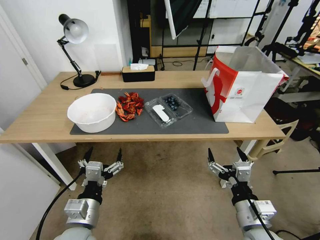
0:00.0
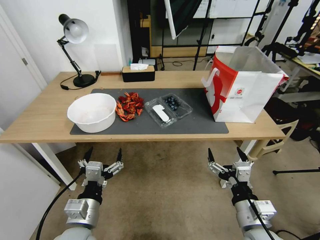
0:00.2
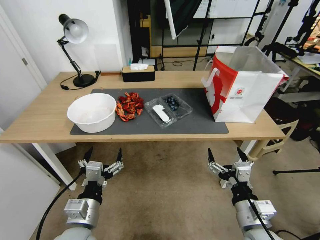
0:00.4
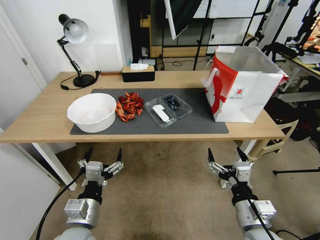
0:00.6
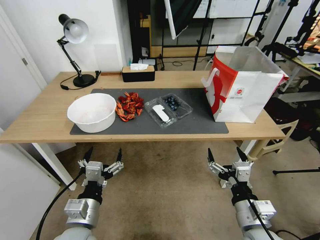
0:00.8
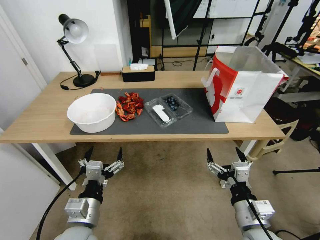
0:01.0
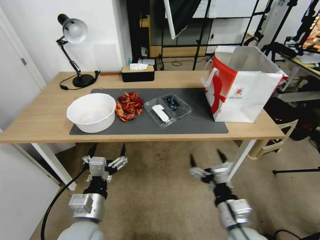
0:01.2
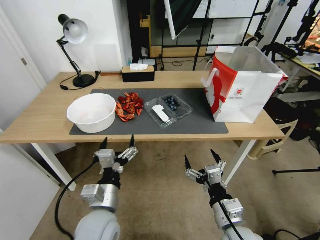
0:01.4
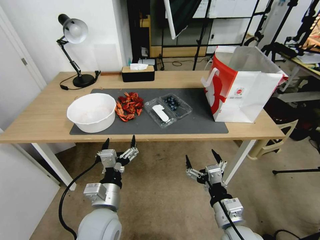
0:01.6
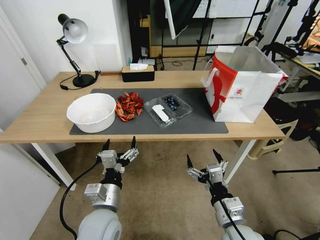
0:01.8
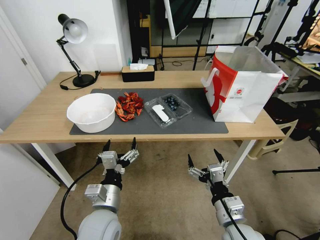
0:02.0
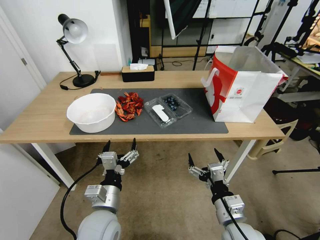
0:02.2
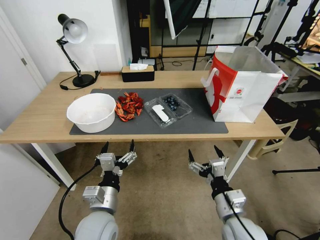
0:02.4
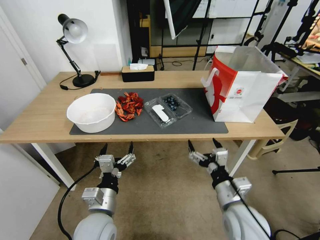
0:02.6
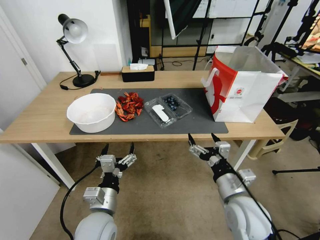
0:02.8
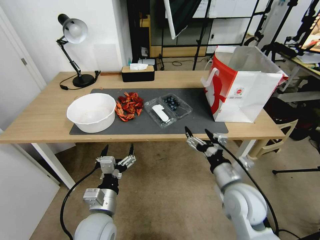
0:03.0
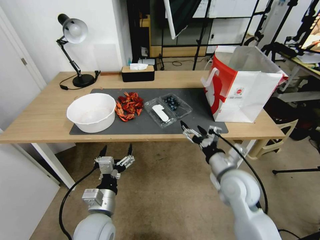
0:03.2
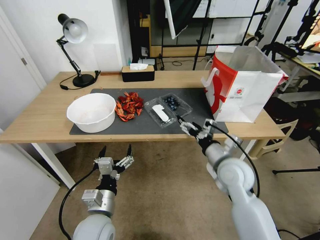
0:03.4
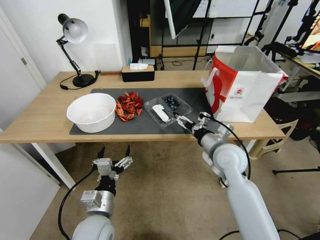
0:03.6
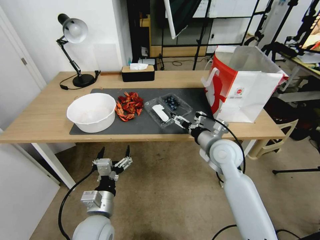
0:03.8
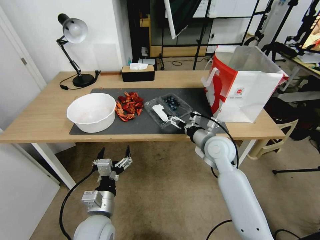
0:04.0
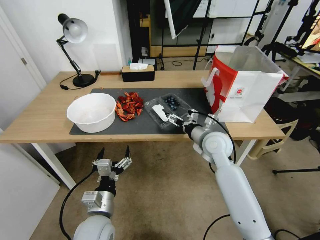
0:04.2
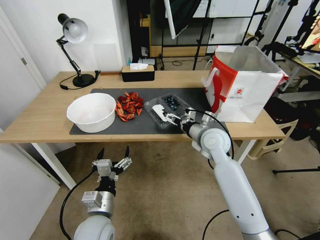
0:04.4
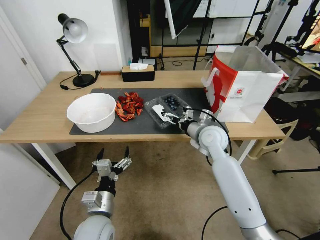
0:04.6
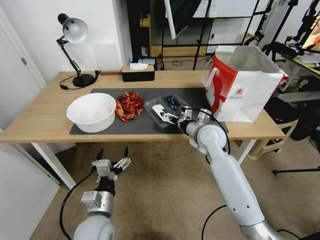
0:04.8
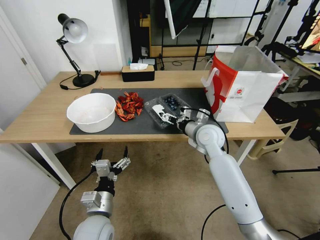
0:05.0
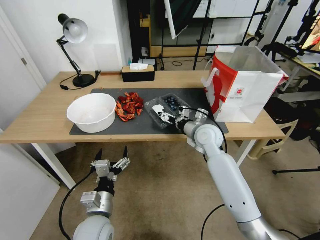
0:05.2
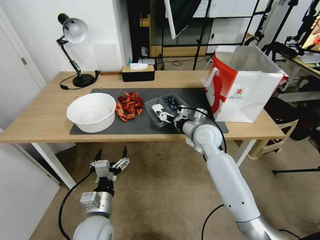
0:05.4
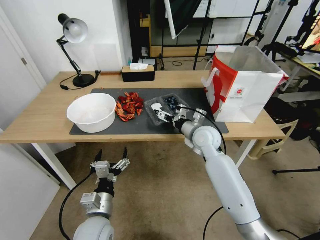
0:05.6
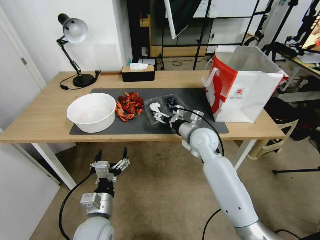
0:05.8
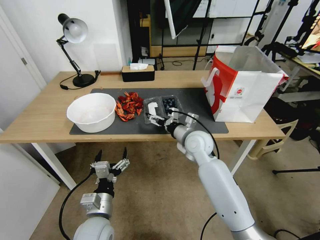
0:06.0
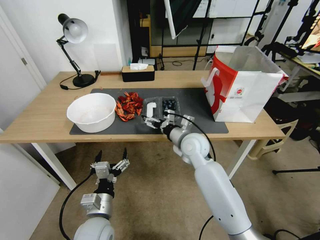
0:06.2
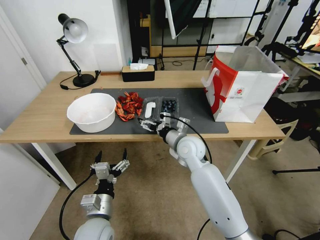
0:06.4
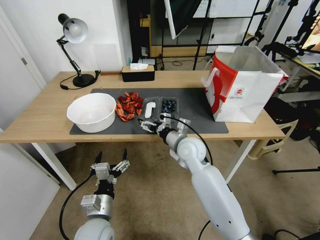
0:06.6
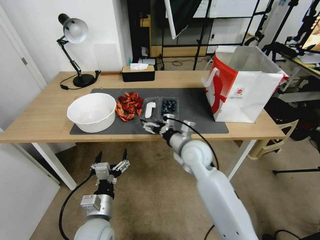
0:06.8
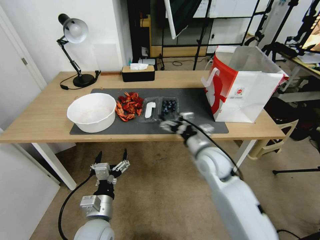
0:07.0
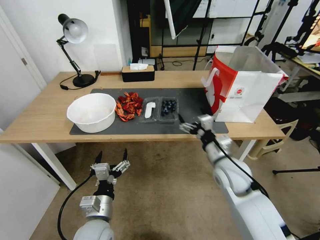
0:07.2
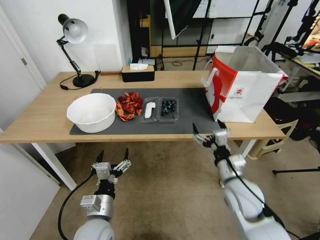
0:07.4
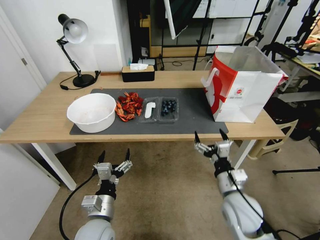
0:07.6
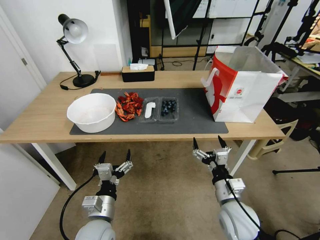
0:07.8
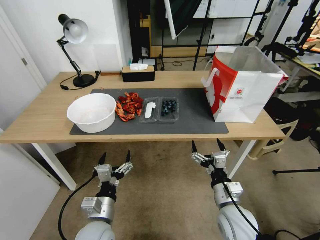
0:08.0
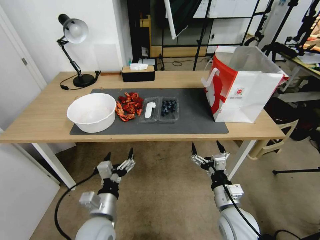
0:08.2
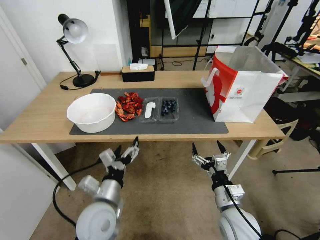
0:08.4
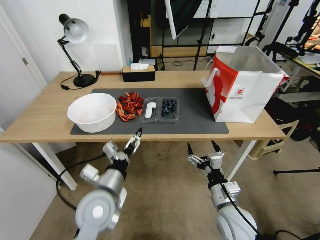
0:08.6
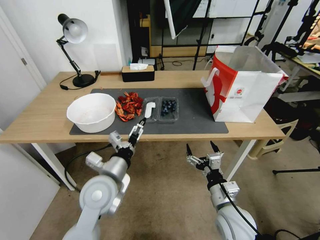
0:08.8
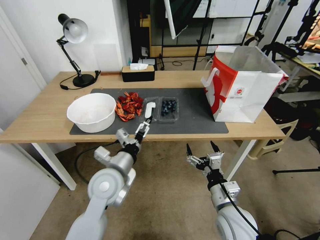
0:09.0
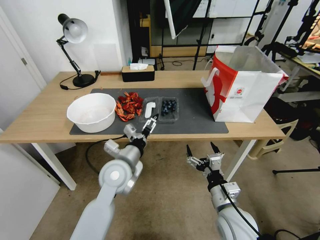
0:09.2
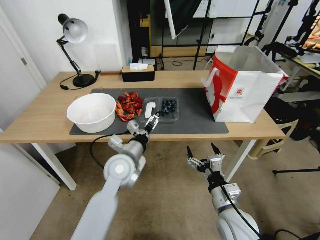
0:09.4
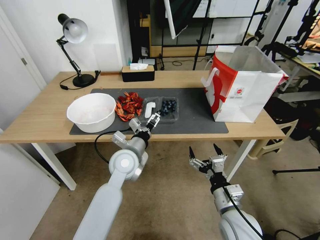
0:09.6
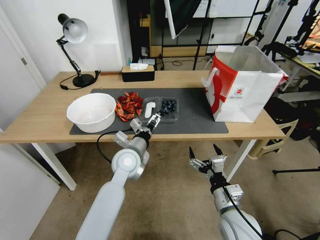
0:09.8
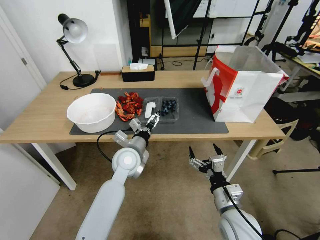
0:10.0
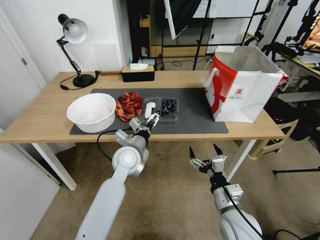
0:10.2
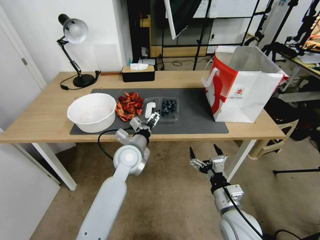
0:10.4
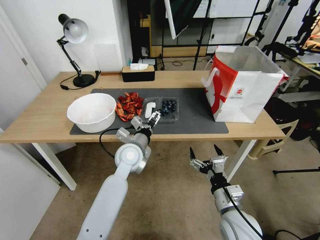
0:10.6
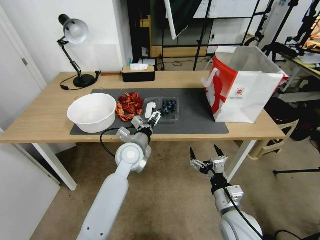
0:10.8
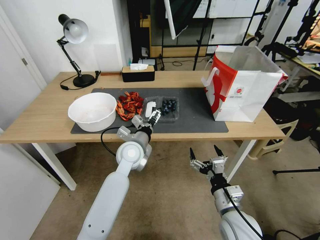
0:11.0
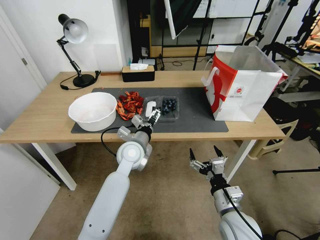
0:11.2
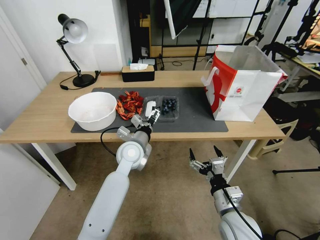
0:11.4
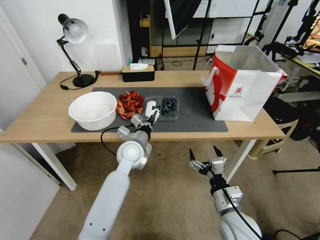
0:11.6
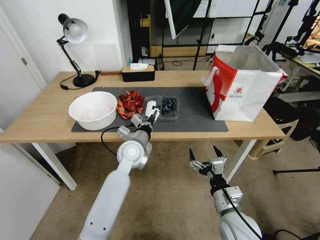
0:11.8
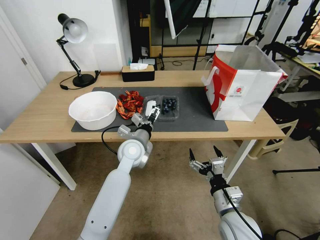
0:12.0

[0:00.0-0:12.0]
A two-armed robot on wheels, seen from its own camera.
Task of the whole recording: Close the takeout container lid, then place the container into the takeout bag.
0:01.6 to 0:03.0: The right gripper goes about 10 cm forward.
0:03.0 to 0:04.4: The right gripper goes some 20 cm forward.
0:04.4 to 0:06.0: The right gripper heads to the left, covering about 5 cm.
0:06.0 to 0:07.6: The right gripper travels backward and to the right by some 20 cm.
0:07.6 to 0:09.0: The left gripper moves forward and upward, roughly 15 cm.
0:09.0 to 0:10.4: The left gripper shifts some 10 cm forward.
0:10.4 to 0:12.0: The grippers move only a little.

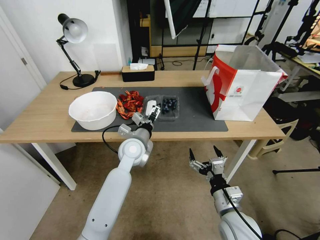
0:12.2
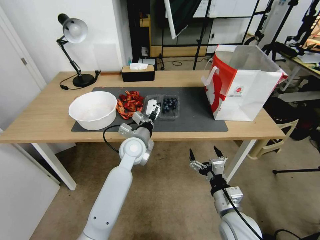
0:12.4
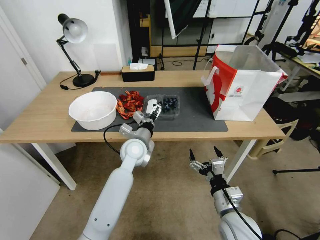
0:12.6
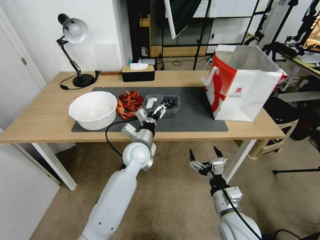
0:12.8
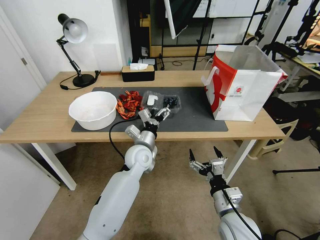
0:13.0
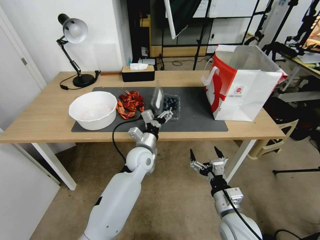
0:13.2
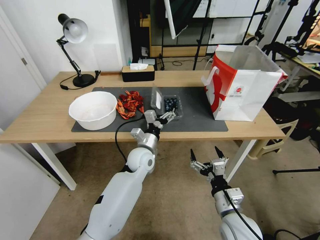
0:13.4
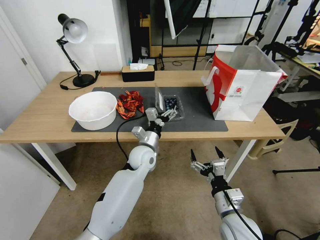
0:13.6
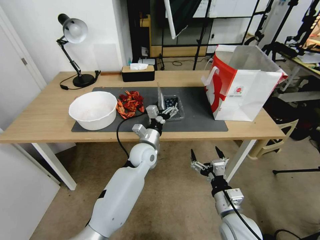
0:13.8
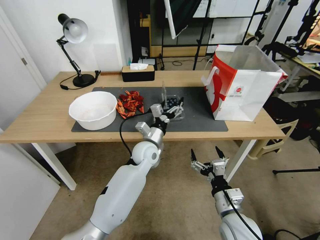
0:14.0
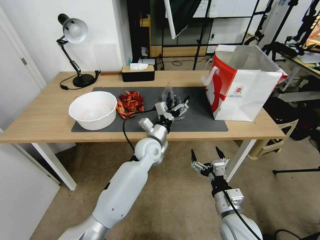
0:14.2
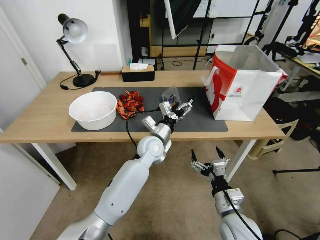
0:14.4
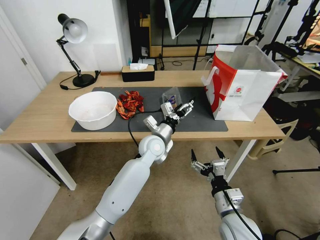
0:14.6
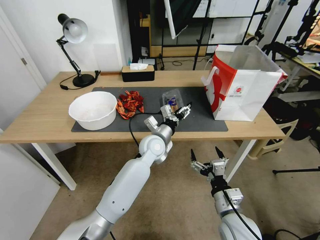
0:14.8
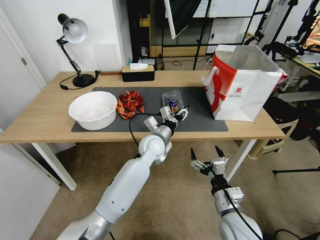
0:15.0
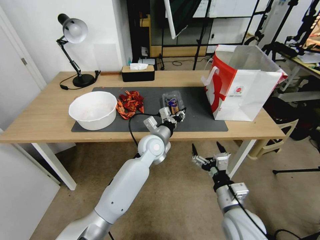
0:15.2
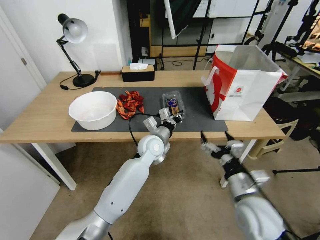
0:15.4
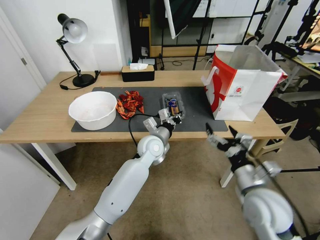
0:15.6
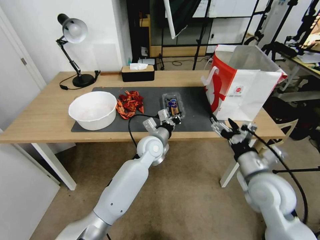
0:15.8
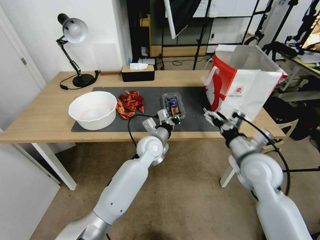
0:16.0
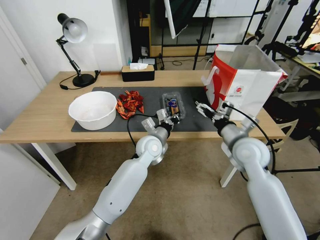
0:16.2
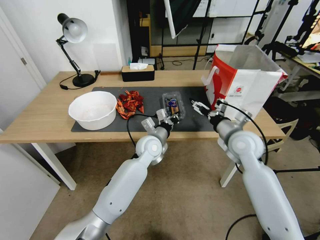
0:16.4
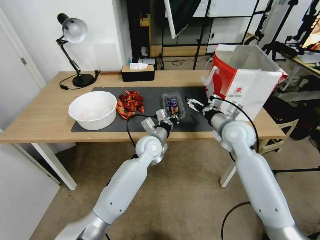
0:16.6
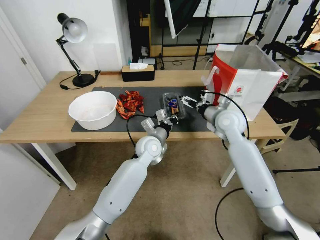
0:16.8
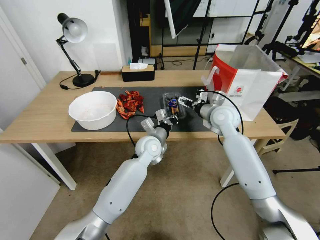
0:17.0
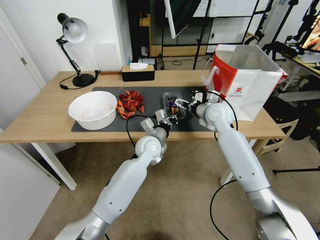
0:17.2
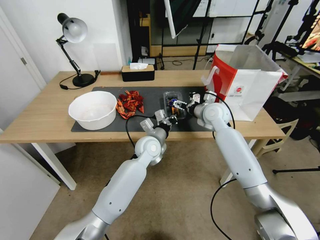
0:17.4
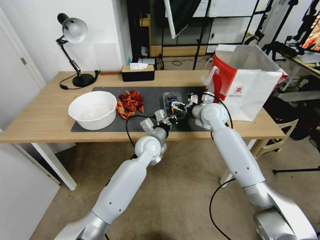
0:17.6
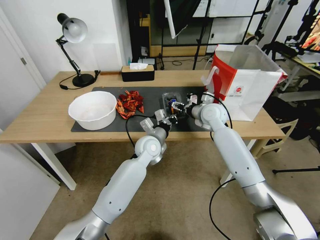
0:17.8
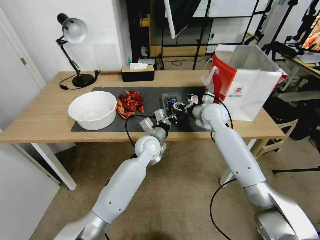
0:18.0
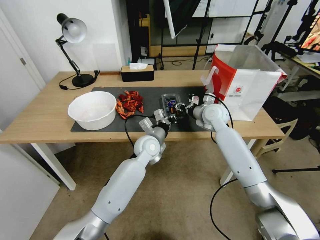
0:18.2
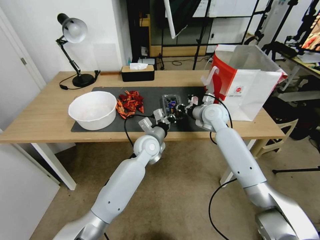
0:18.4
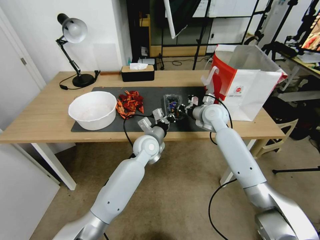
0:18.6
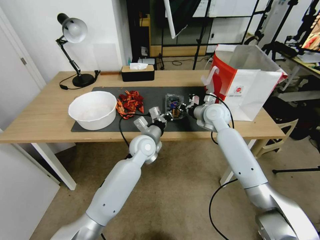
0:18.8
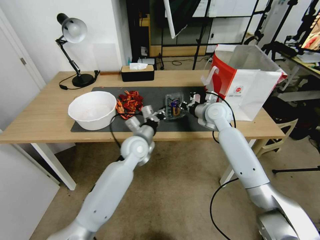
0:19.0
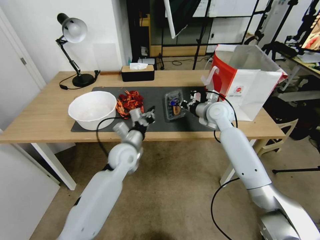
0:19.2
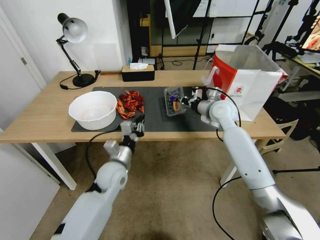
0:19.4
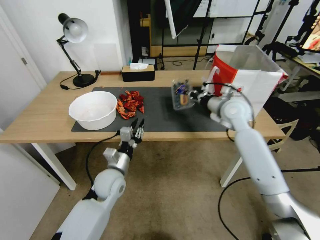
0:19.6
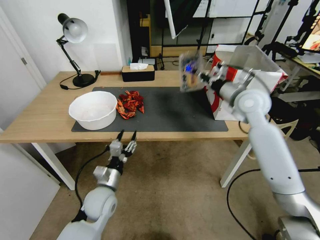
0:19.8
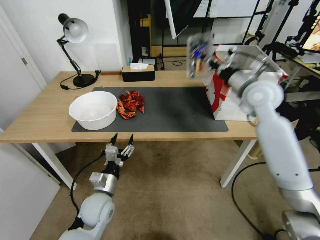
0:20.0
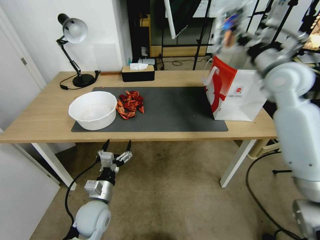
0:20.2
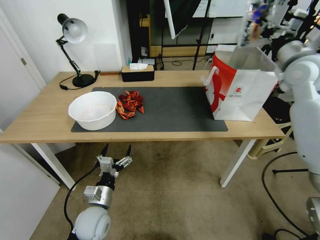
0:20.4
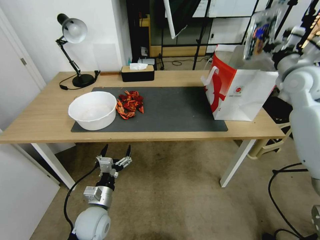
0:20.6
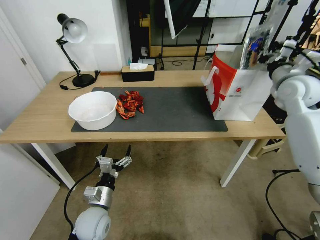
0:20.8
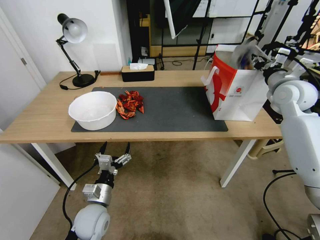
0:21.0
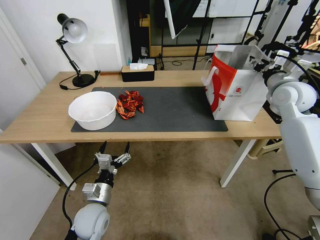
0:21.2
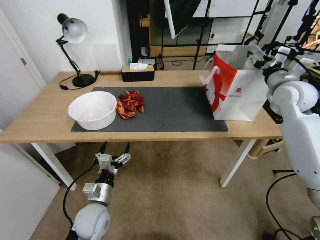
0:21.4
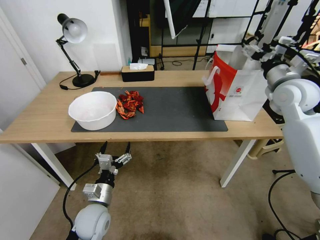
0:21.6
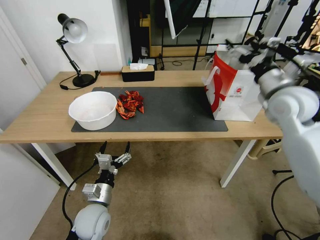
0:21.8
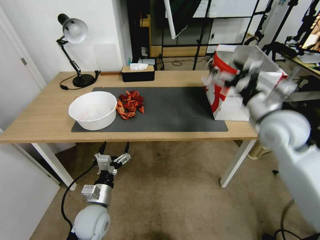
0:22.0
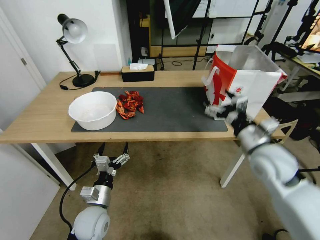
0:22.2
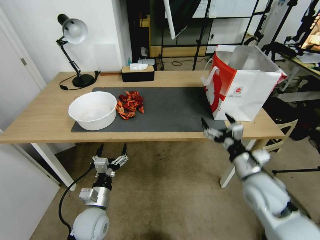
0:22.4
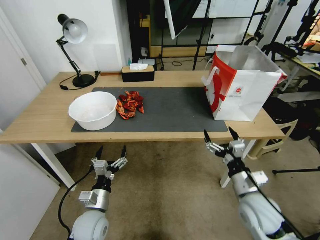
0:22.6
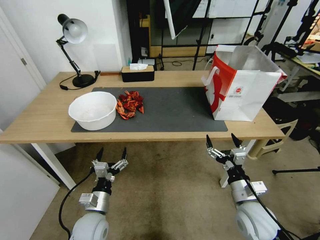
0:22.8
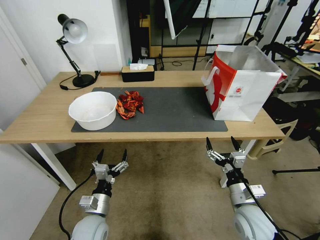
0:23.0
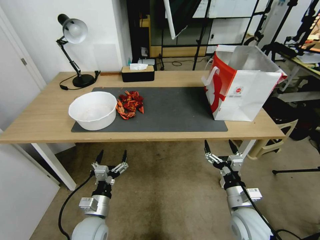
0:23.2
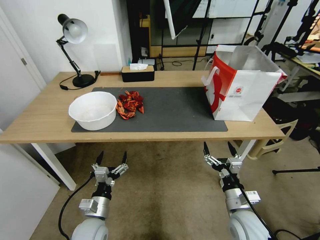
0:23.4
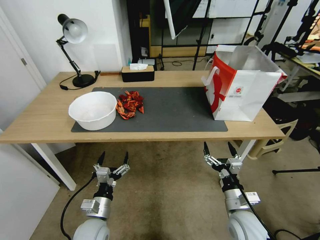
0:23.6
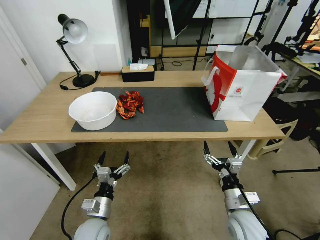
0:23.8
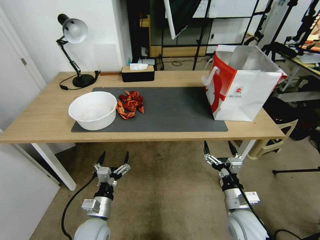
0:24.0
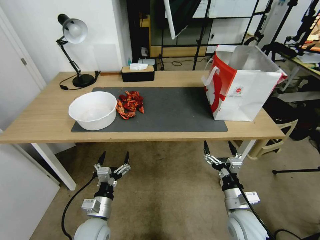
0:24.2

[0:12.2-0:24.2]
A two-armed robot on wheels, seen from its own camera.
Task of the whole recording: Close the takeout container lid, then place the container into the takeout bag.
0:12.2 to 0:13.8: The left gripper changes place by about 5 cm.
0:13.8 to 0:15.2: The left gripper closes up.
0:15.2 to 0:16.6: The right gripper goes some 25 cm forward and upward.
0:16.6 to 0:18.2: The right gripper moves forward, approximately 10 cm, and closes up.
0:18.2 to 0:19.8: The left gripper shifts some 20 cm backward, to the left and downward, and opens its fingers, while the right gripper moves upward, to the right and backward, some 10 cm, and closes.
0:19.8 to 0:21.2: The right gripper goes about 10 cm to the right, and opens; the left gripper goes some 5 cm backward, and opens.
0:21.2 to 0:22.6: The right gripper is displaced backward, downward and to the left by some 35 cm, and opens its fingers.
0:22.6 to 0:24.2: The right gripper moves downward, roughly 5 cm.
